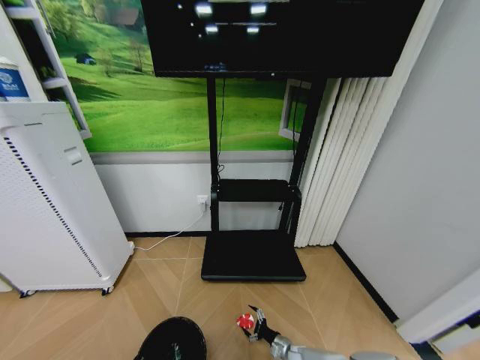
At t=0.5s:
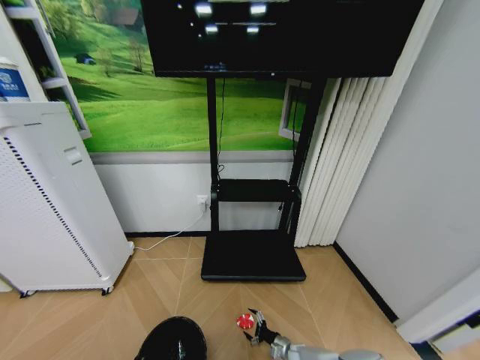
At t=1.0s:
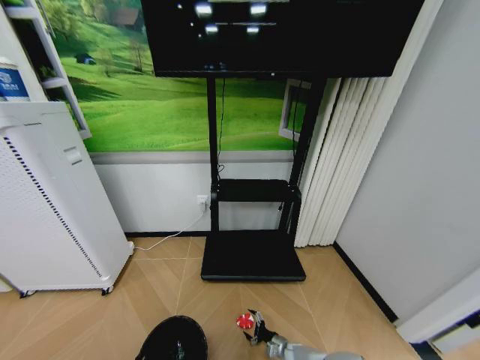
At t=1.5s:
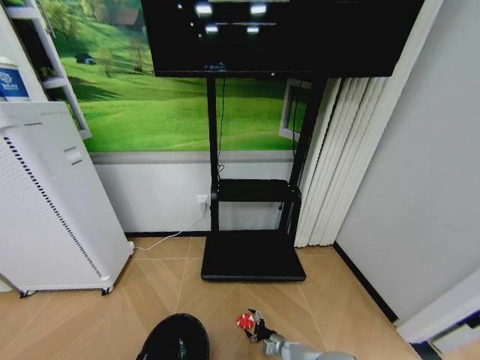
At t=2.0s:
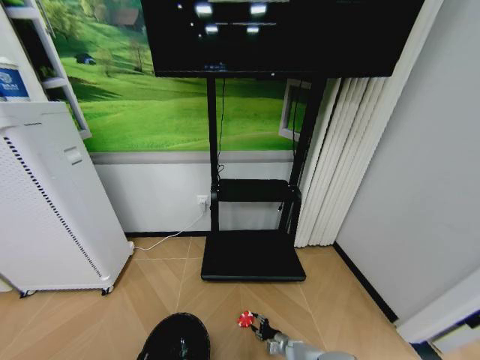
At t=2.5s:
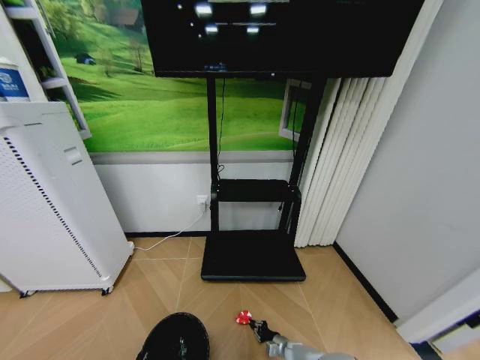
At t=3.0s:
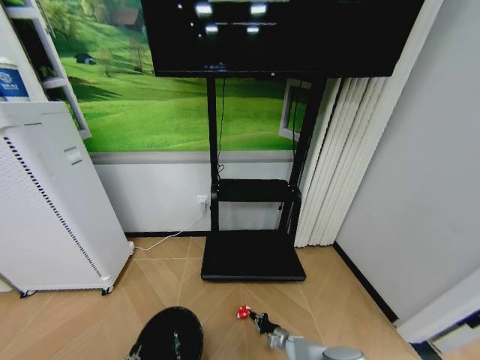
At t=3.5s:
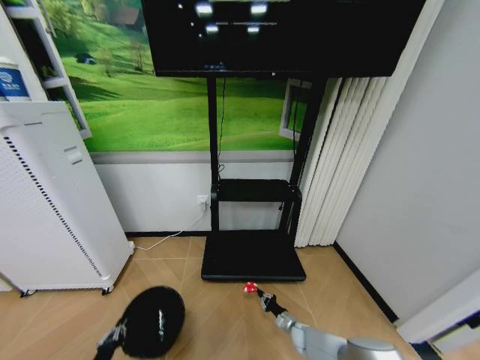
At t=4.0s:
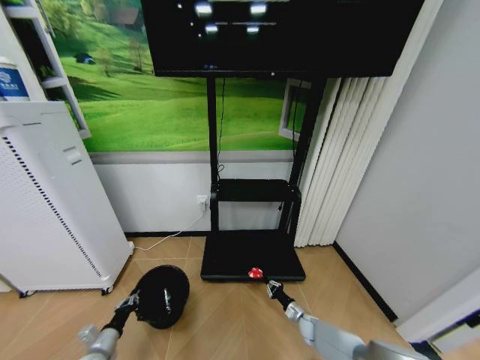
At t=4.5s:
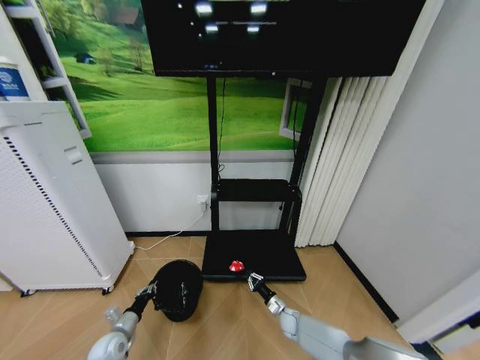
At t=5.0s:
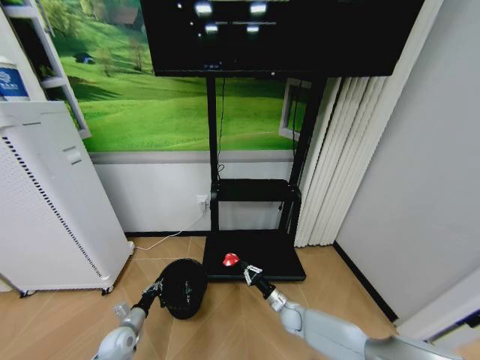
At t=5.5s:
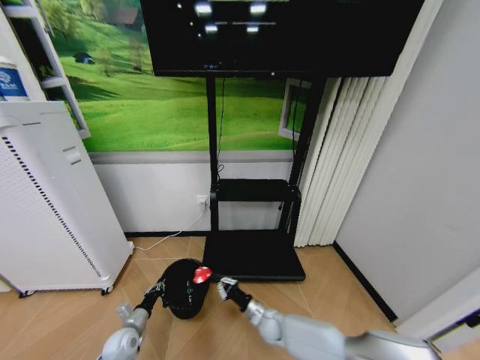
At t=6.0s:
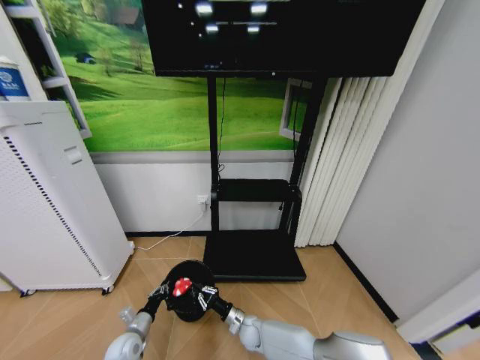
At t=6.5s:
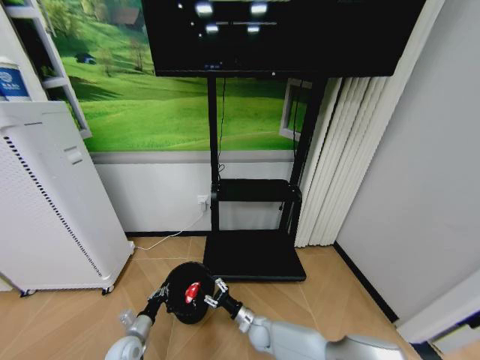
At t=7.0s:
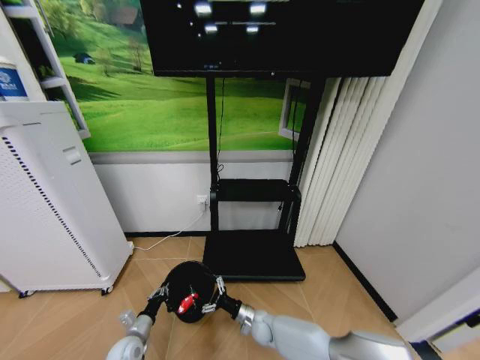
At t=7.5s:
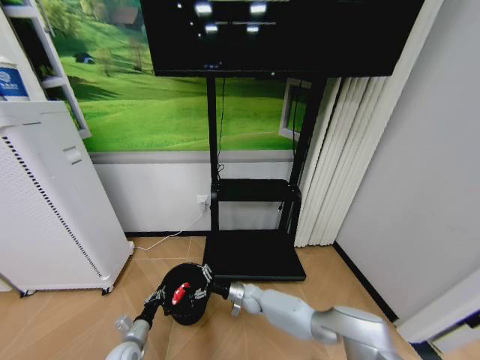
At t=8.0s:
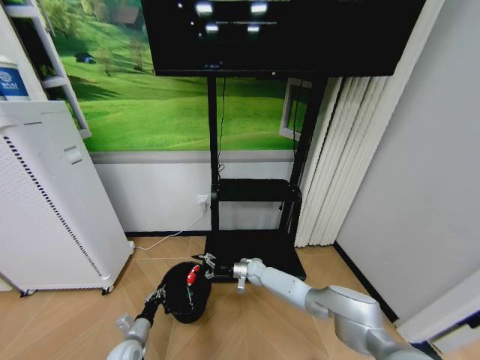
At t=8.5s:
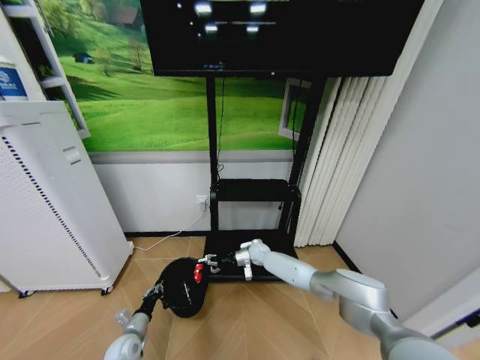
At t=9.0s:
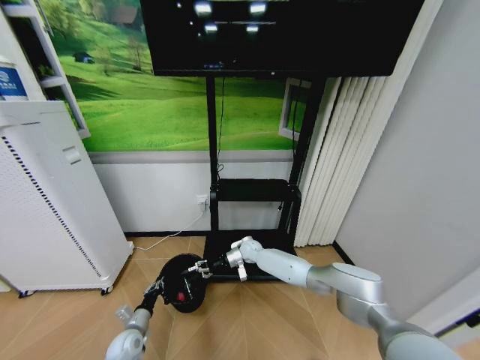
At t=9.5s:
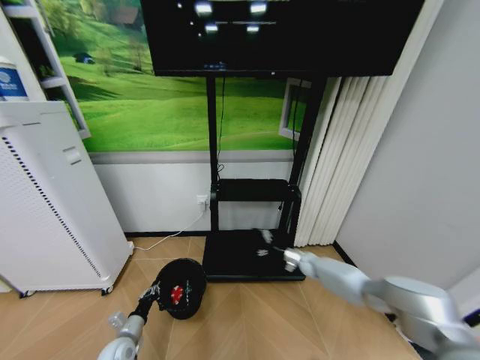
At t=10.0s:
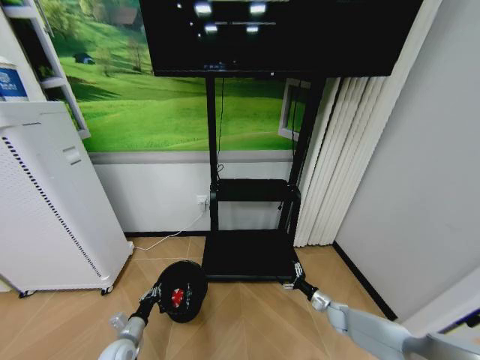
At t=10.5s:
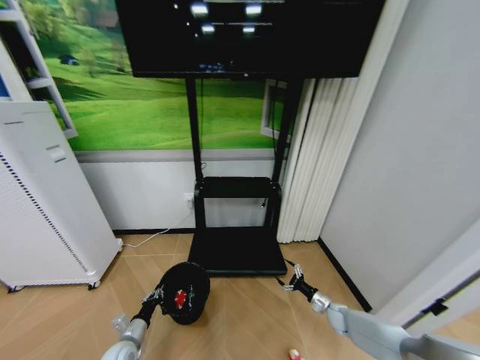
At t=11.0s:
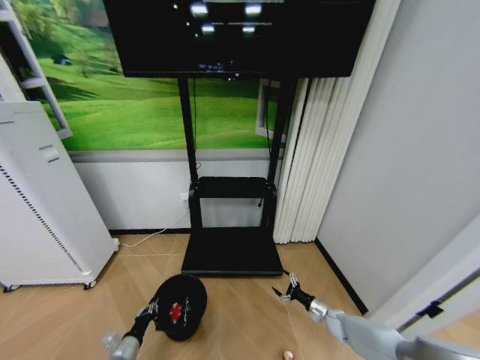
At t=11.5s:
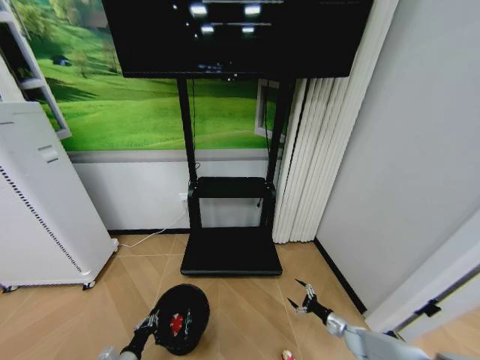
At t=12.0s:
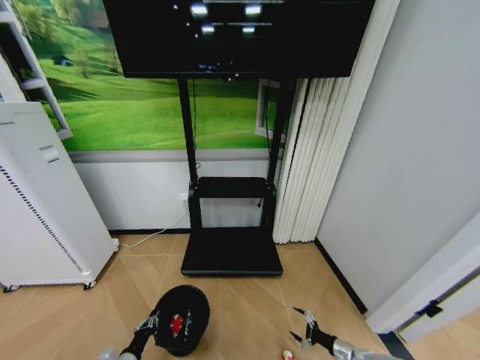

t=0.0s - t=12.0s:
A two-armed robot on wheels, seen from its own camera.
Task of the whole recording: Pick up the trash bin and place the garbage on the floor into it.
t=0.0s - t=2.0s: The right gripper closes up.
t=2.0s - t=4.0s: The left gripper is displaced forward and to the left by roughly 20 cm. Meanwhile the right gripper shifts some 10 cm upward, to the right and forward, and closes up.
t=4.0s - t=6.0s: The right gripper is displaced to the left by some 25 cm. Meanwhile the left gripper is displaced to the right and forward by some 10 cm.
t=6.0s - t=8.0s: The right gripper moves forward and upward, about 20 cm, and opens up.
t=8.0s - t=10.0s: The right gripper travels to the right and backward by about 35 cm.
t=10.0s - t=12.0s: The right gripper heads backward and downward, covering some 15 cm, while the left gripper shifts roughly 10 cm backward.

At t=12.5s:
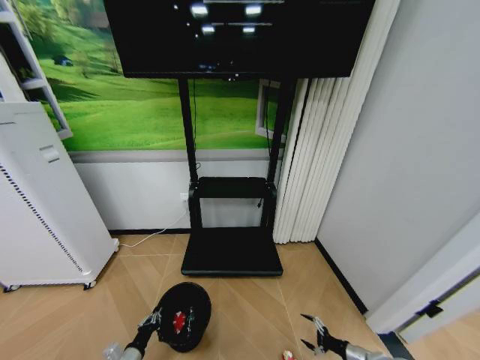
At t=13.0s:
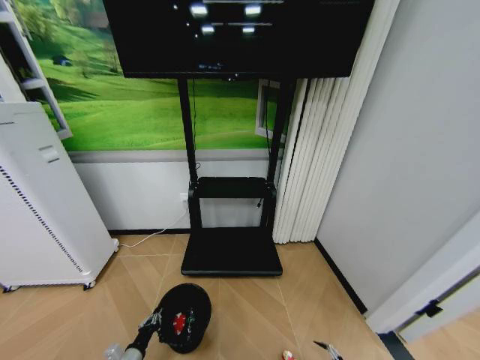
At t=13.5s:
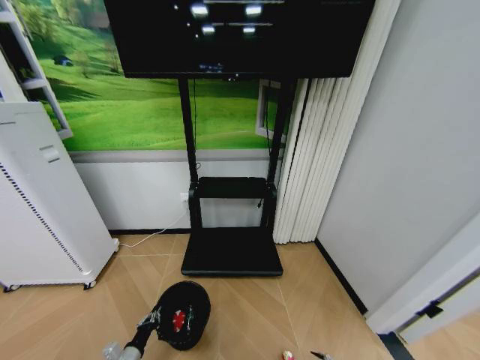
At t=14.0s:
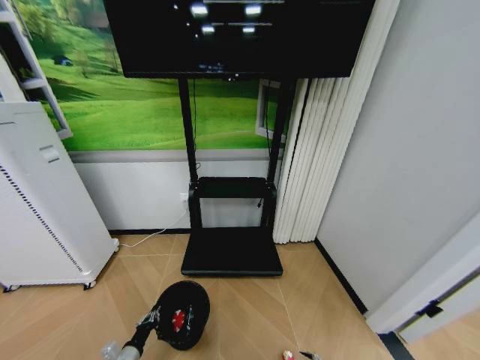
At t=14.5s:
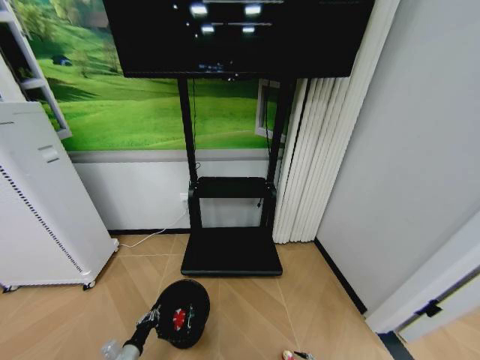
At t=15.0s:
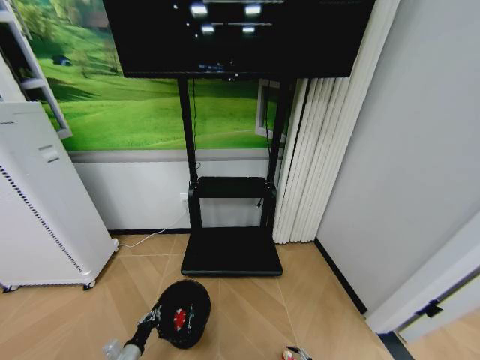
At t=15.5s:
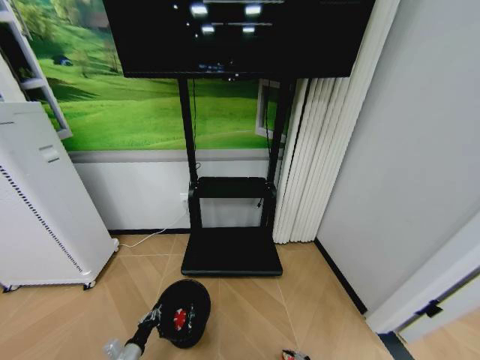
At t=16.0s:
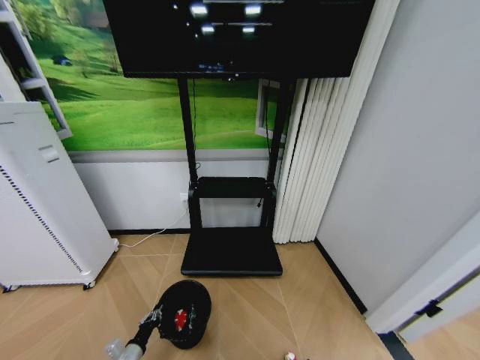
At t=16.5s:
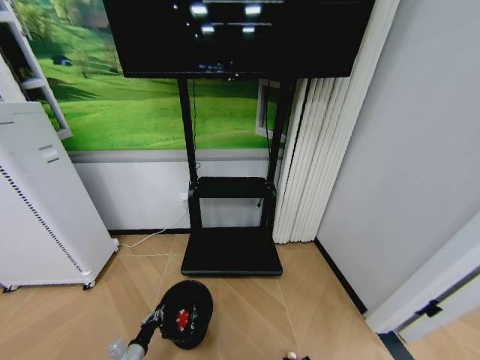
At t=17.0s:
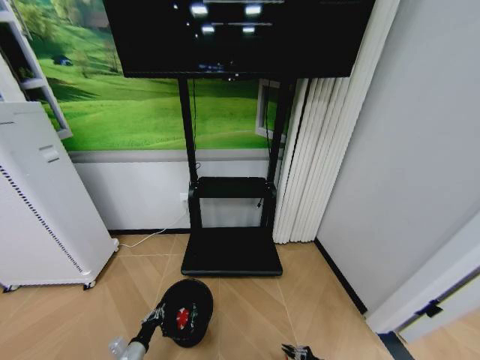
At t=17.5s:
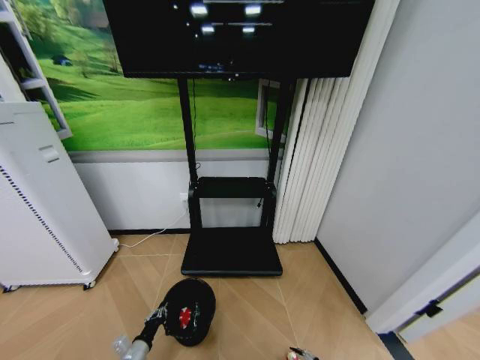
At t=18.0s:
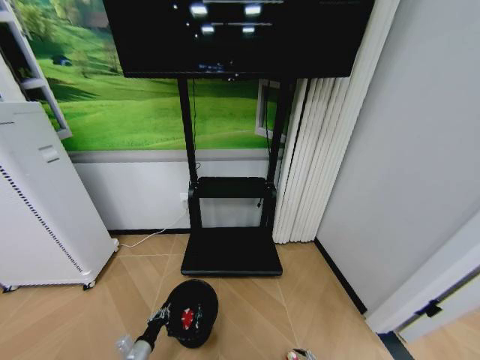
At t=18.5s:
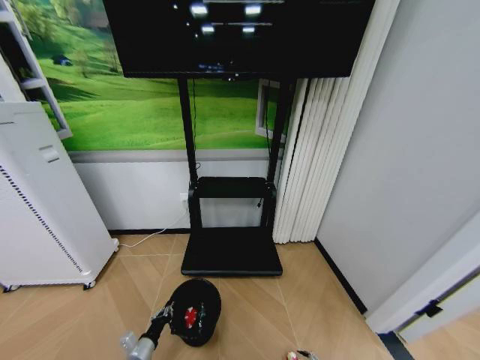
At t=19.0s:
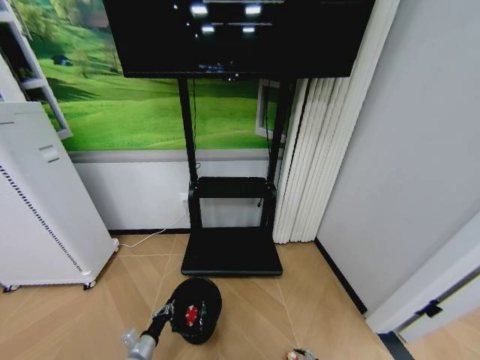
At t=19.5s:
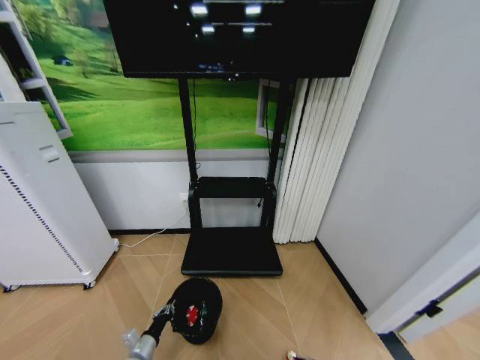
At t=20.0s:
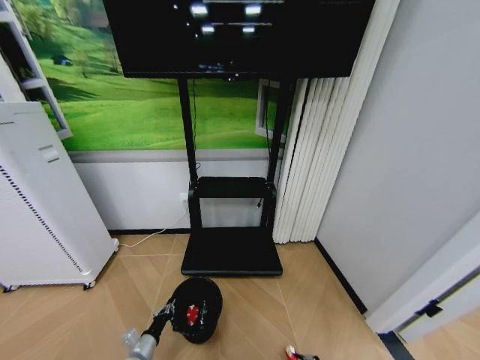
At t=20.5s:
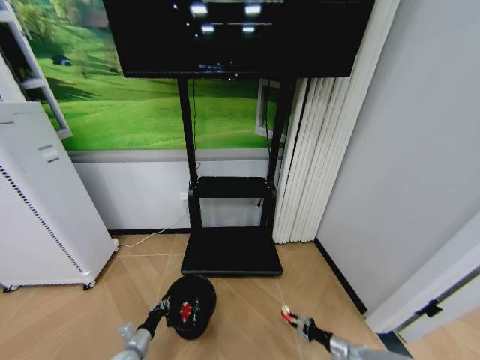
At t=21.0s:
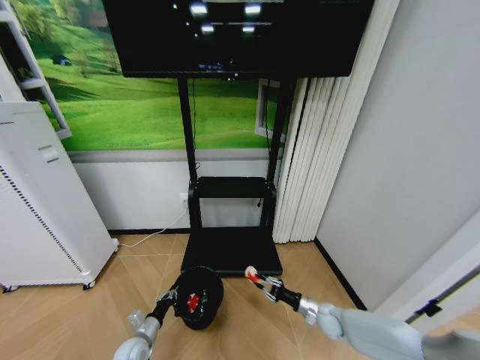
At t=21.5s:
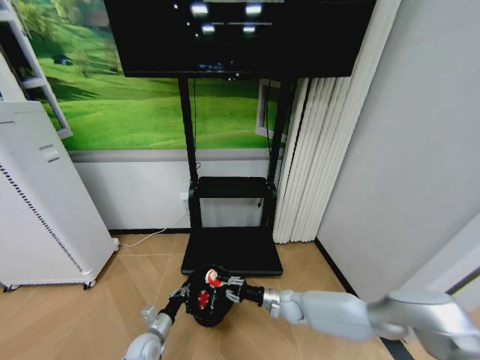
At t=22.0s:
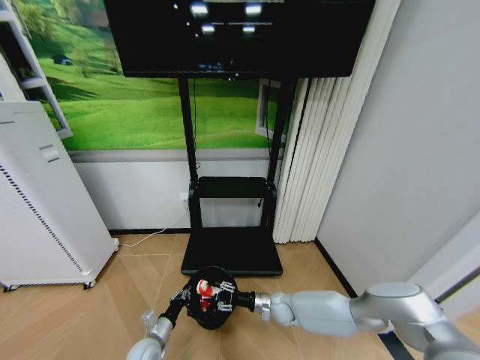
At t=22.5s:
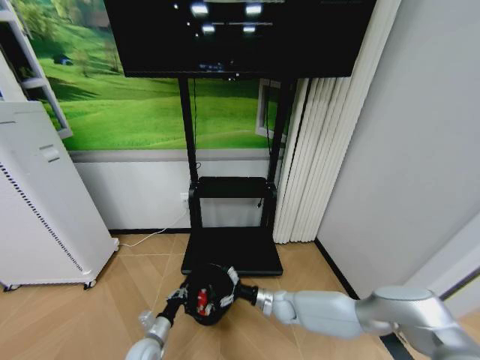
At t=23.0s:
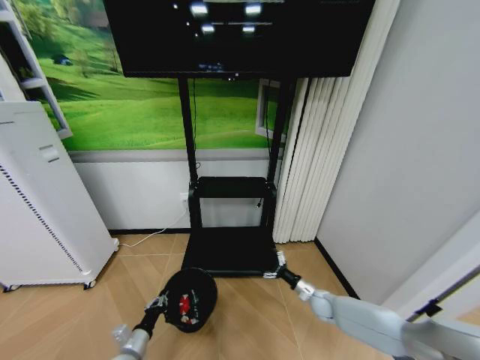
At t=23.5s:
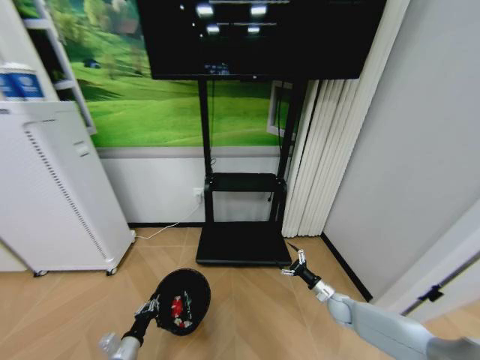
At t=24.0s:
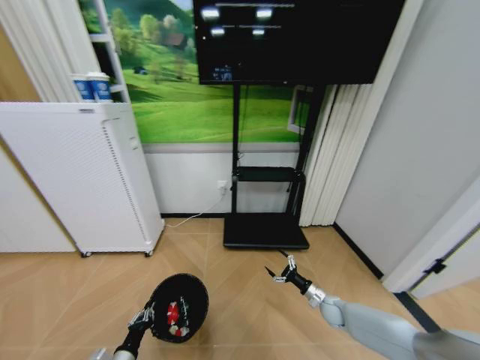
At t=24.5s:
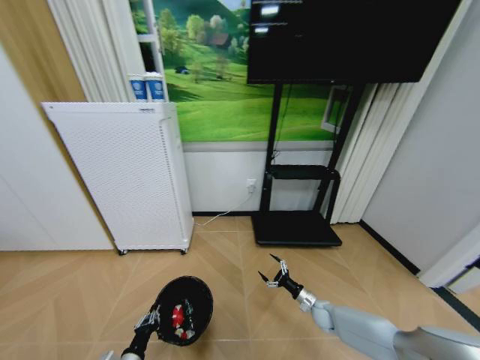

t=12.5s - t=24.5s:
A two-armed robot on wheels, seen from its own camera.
Task of the whole recording: Pick up the trash bin and place the garbage on the floor into it.
t=12.5s - t=14.5s: The right gripper shifts roughly 10 cm backward and downward.
t=14.5s - t=16.5s: The right gripper closes its fingers.
t=16.5s - t=18.5s: The right gripper opens up.
t=18.5s - t=20.5s: The right gripper is displaced forward and upward by about 10 cm, and closes up.
t=20.5s - t=22.5s: The right gripper goes some 35 cm to the left, upward and forward, and opens up. The left gripper travels to the right by roughly 5 cm.
t=22.5s - t=24.5s: The right gripper goes about 15 cm to the right. The left gripper moves backward, some 10 cm.

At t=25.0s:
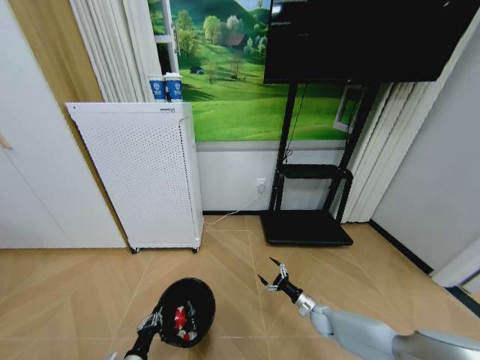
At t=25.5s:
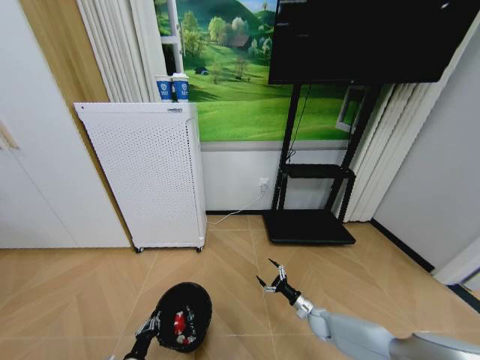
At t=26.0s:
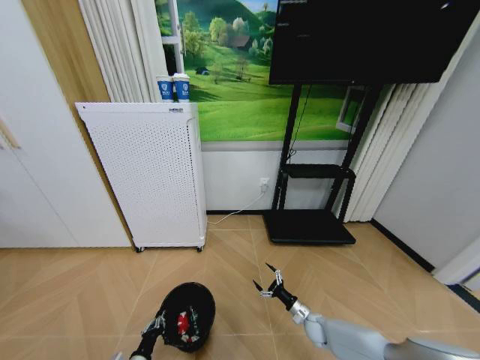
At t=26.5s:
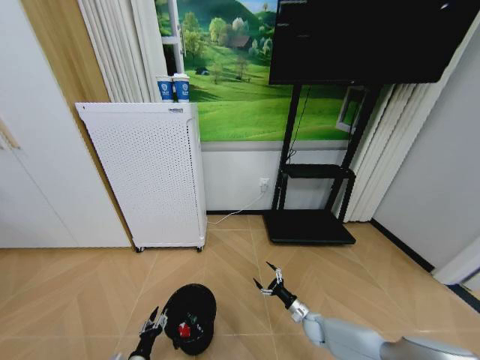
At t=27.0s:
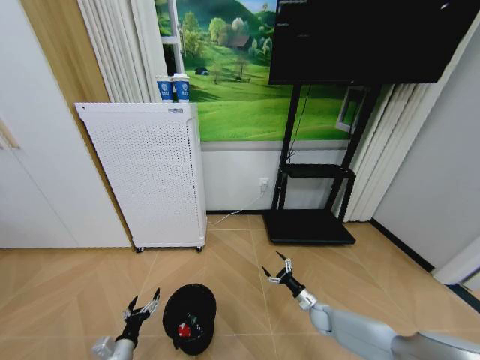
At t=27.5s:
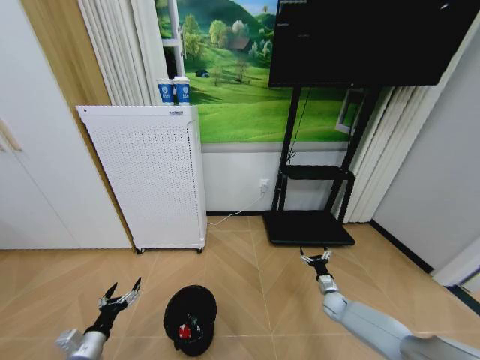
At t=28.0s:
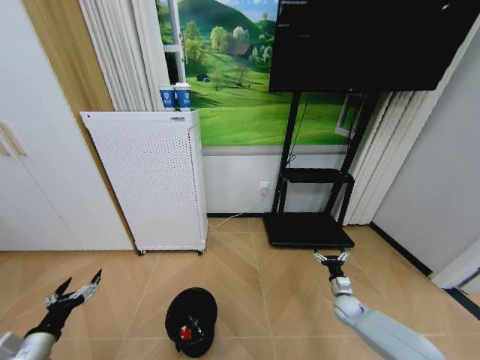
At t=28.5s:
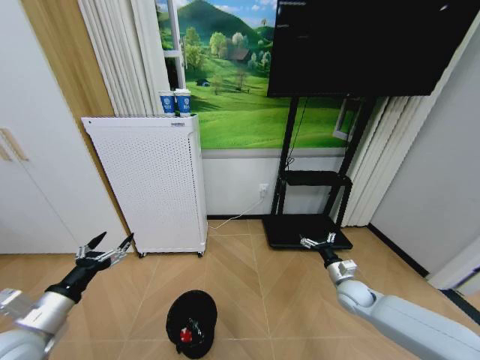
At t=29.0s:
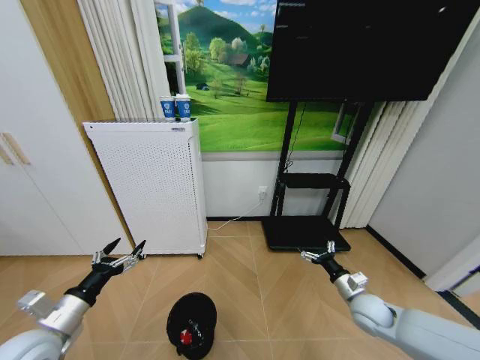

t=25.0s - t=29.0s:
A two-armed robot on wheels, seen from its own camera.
Task of the whole recording: Pick up the trash bin and place the garbage on the floor into it.
t=25.0s - t=27.0s: The left gripper opens up.
t=27.0s - t=29.0s: The two grippers go about 20 cm upward.
